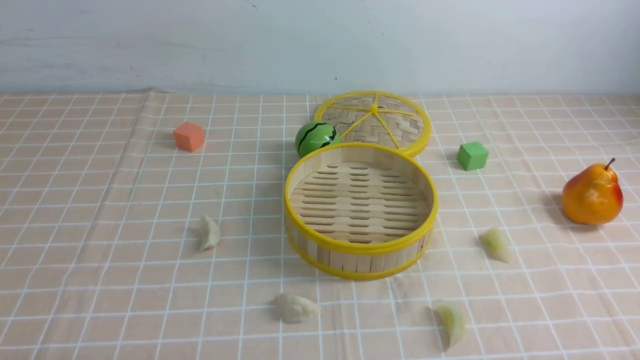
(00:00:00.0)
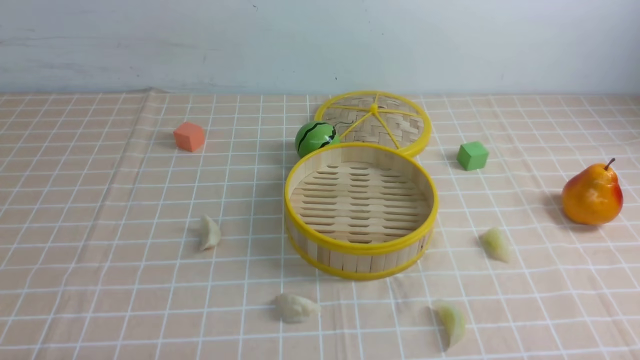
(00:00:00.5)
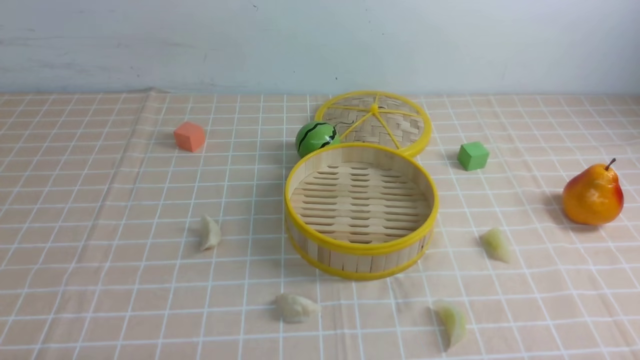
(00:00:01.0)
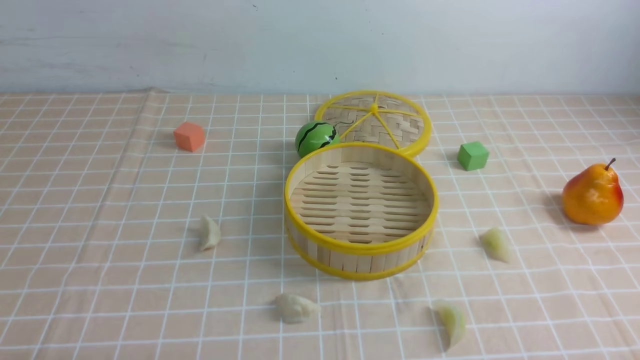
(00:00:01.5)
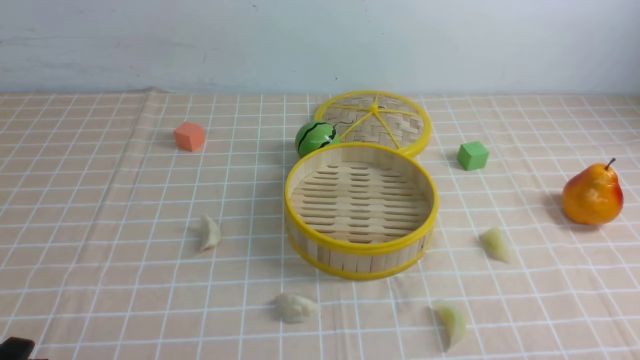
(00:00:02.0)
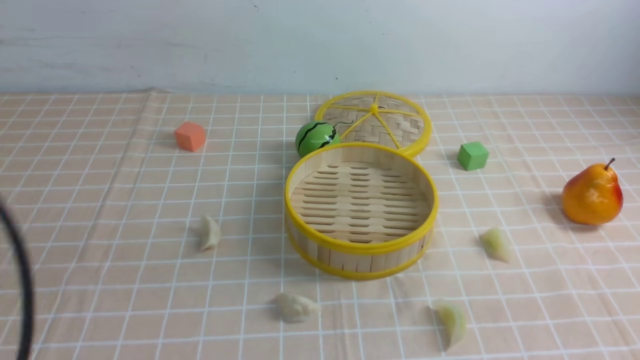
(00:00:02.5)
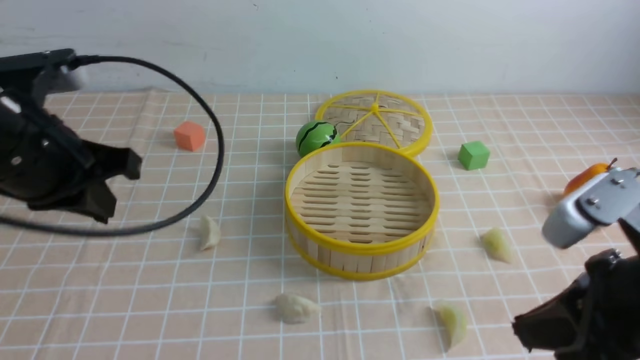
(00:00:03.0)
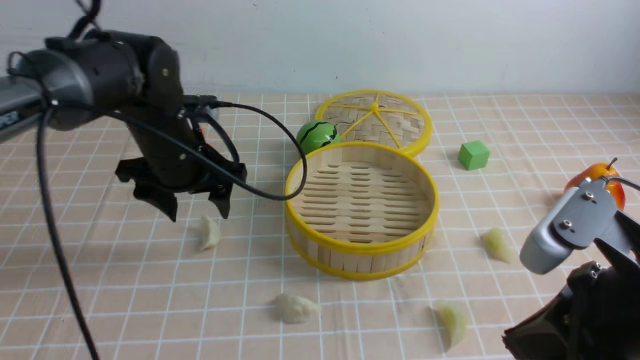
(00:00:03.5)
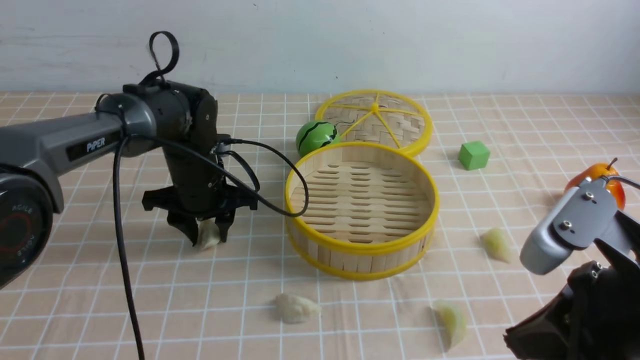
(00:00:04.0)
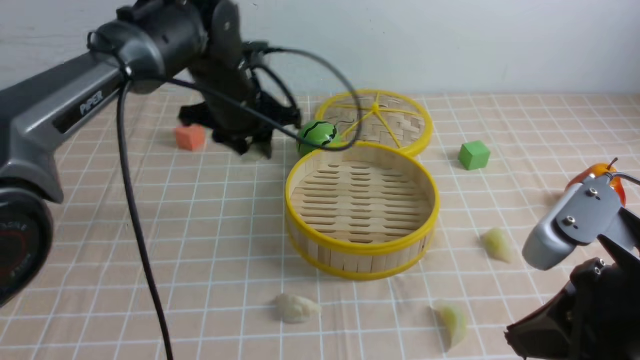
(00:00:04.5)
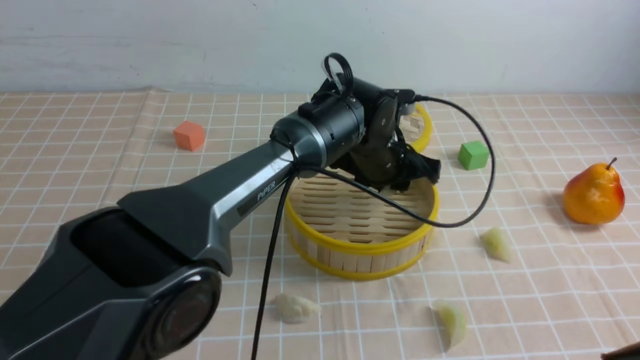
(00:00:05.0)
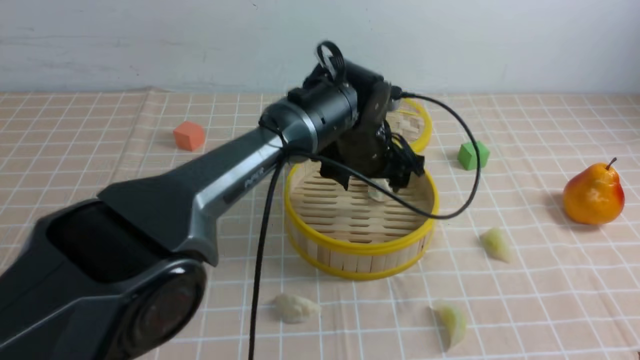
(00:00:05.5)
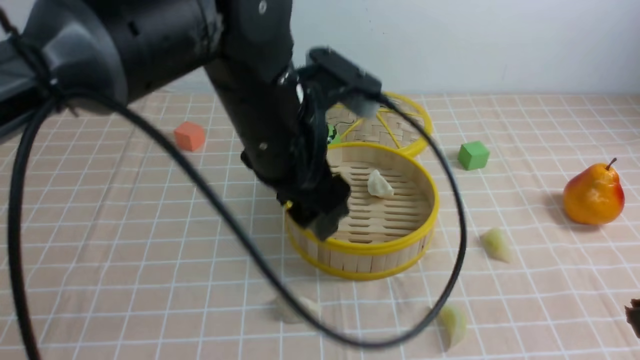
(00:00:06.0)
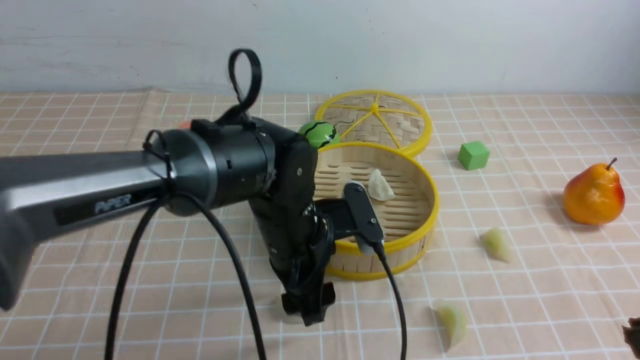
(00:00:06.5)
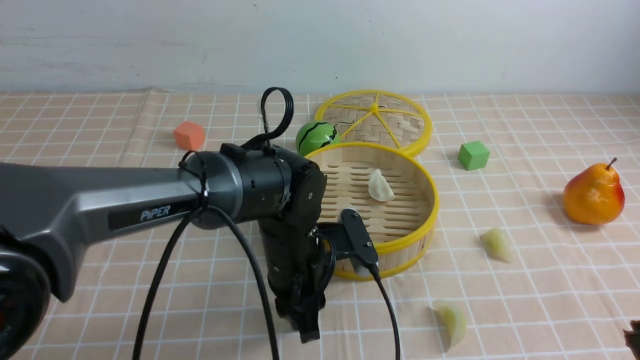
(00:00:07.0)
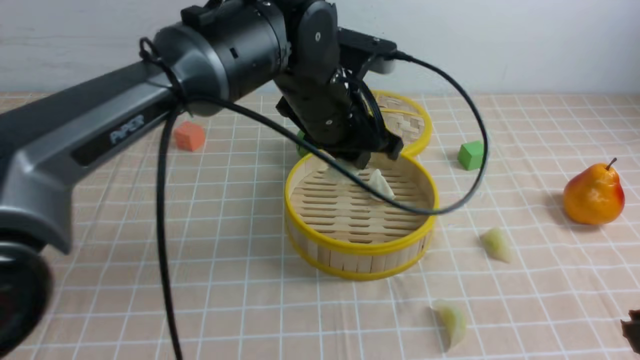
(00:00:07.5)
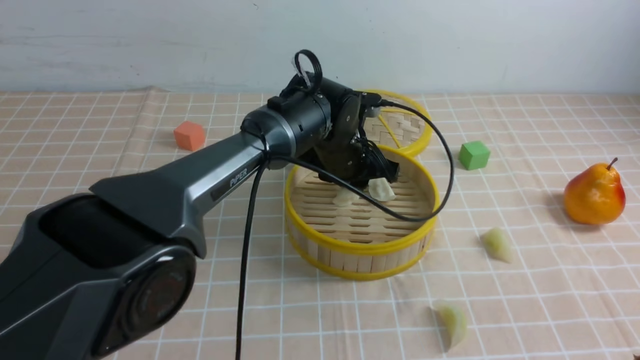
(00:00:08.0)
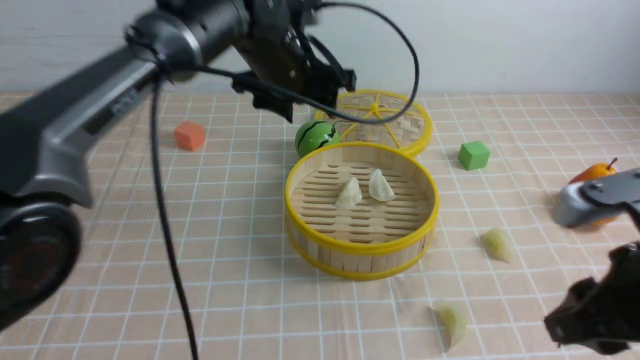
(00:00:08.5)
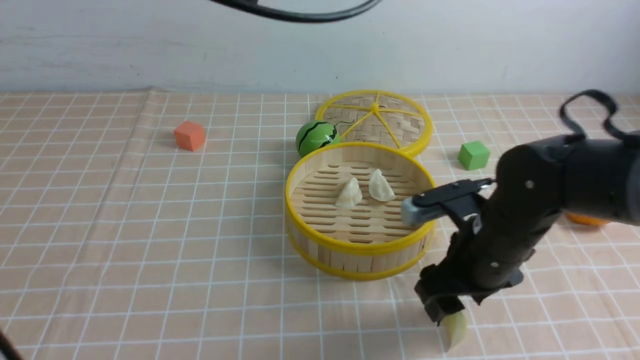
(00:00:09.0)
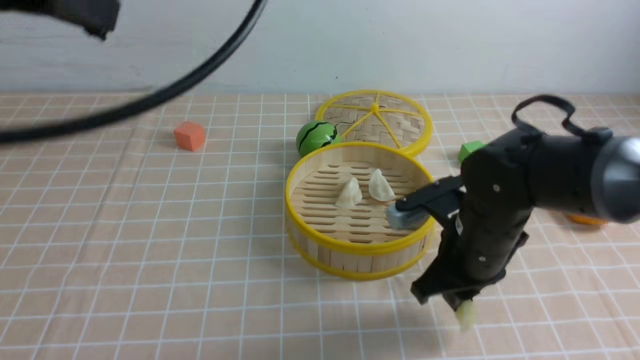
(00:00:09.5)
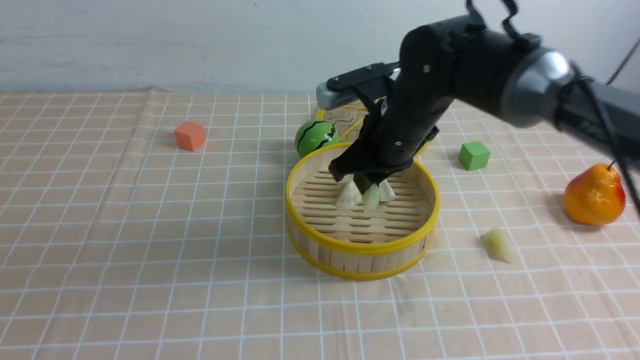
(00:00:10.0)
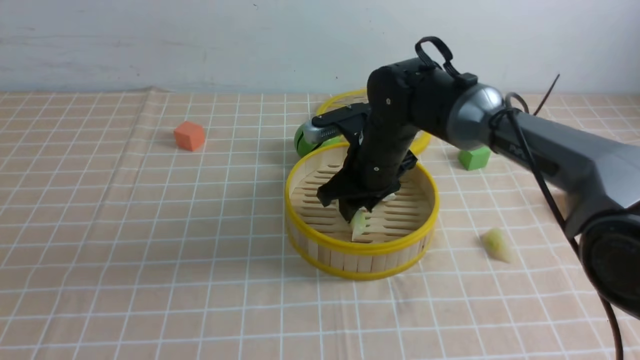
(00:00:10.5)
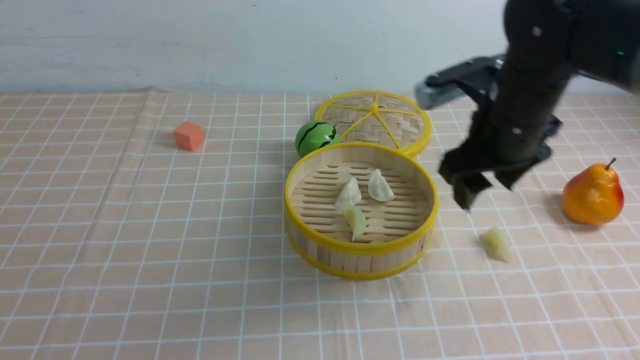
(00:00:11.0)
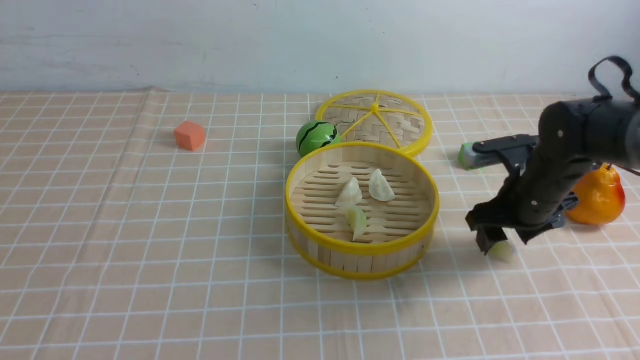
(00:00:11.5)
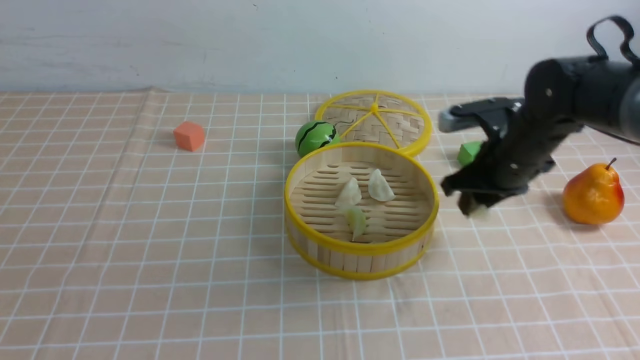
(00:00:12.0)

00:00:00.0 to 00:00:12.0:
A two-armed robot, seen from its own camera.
Task of the whole recording: put the dumplings into the steamer on the table with the brown tablecloth.
Step, 00:00:00.0 to 00:00:04.0: use the left arm to grab a dumpling.
Step, 00:00:04.5 to 00:00:05.5: use the left arm to put the dumpling into the steamer.
Step, 00:00:06.0 to 00:00:06.5: use the left arm to grab a dumpling.
Step, 00:00:07.0 to 00:00:08.0: use the left arm to put the dumpling into the steamer.
Step, 00:00:08.5 to 00:00:09.0: use the right arm to grab a dumpling.
Step, 00:00:09.5 to 00:00:10.5: use the right arm to put the dumpling into the steamer.
Step, 00:00:11.0 to 00:00:11.5: use the right arm to grab a dumpling.
00:00:02.0 to 00:00:04.0: The right gripper goes approximately 15 cm forward, upward and to the left, and closes; the left gripper goes about 40 cm forward, and closes, then reopens.
00:00:04.0 to 00:00:06.0: The left gripper heads upward, to the right and backward, covering about 25 cm. Meanwhile the right gripper shifts approximately 10 cm backward and upward.
00:00:06.0 to 00:00:08.0: The left gripper swings up and down, about 15 cm each way, with 2 reversals, and closes.
00:00:08.0 to 00:00:10.0: The right gripper travels forward and to the left by about 35 cm, and opens, then closes once more; the left gripper goes roughly 50 cm backward, to the left and upward, and closes.
00:00:10.0 to 00:00:12.0: The right gripper shifts some 15 cm to the right and downward, and opens and closes again.

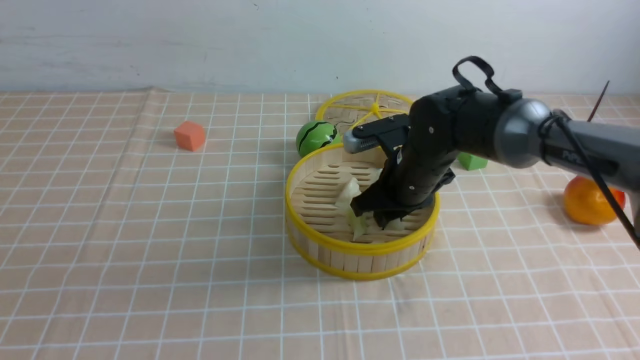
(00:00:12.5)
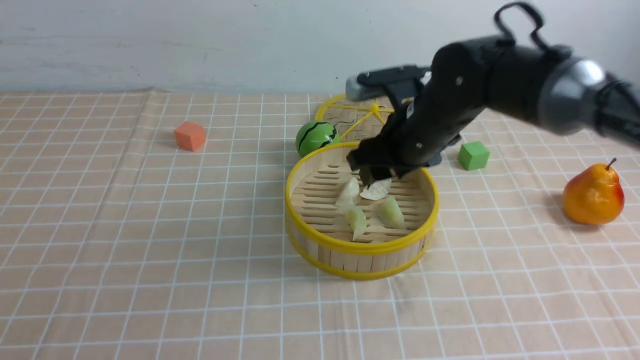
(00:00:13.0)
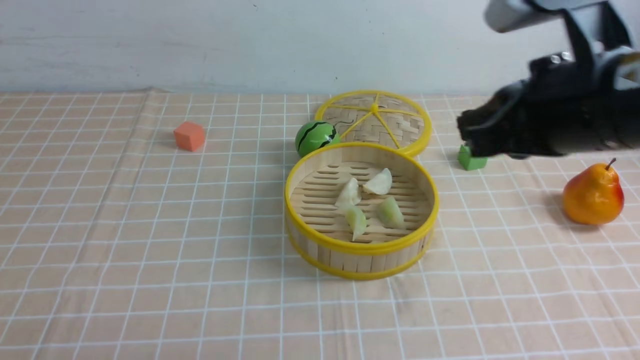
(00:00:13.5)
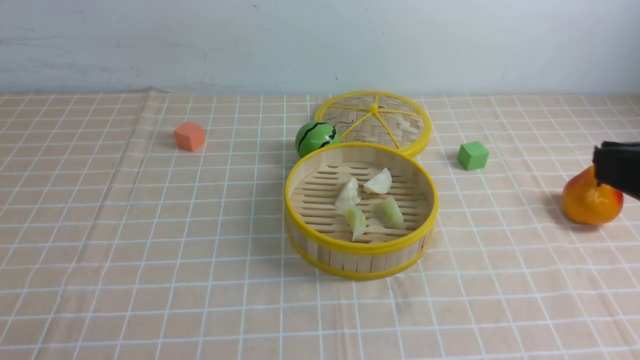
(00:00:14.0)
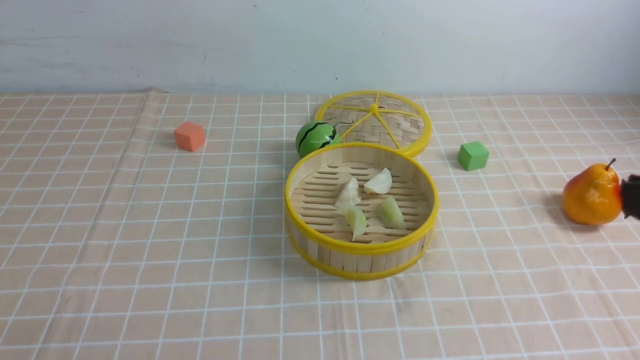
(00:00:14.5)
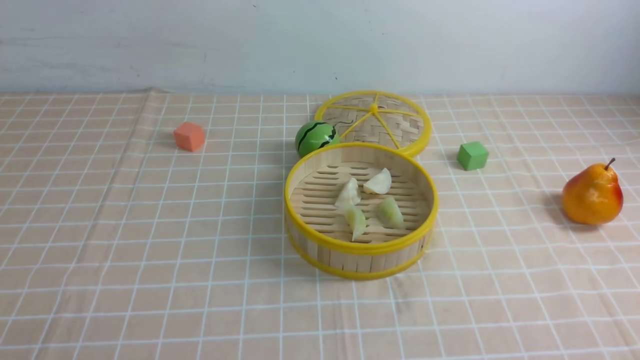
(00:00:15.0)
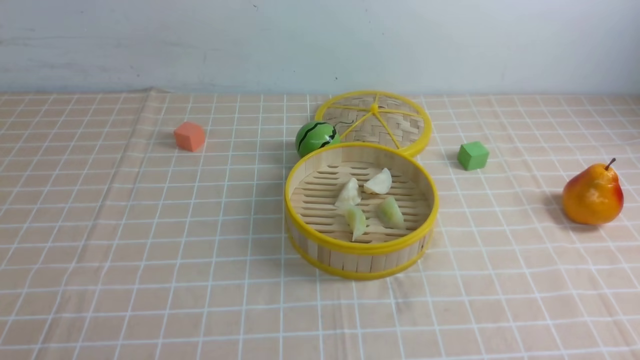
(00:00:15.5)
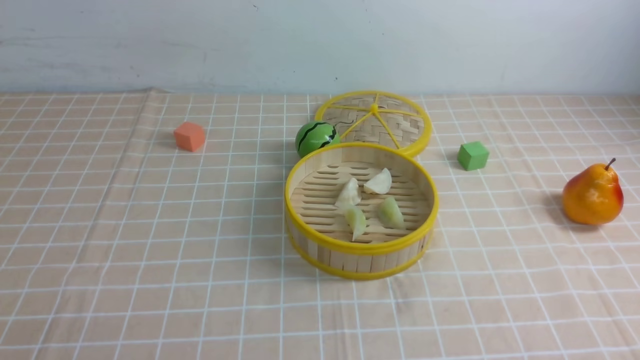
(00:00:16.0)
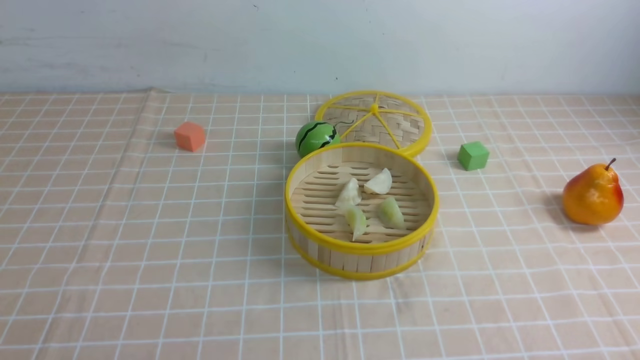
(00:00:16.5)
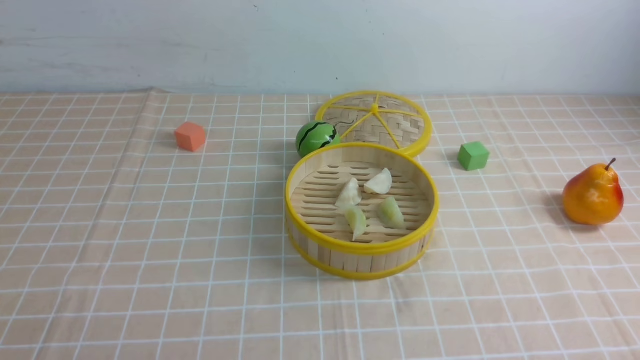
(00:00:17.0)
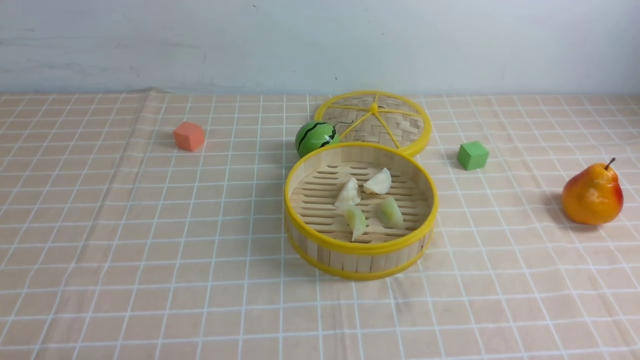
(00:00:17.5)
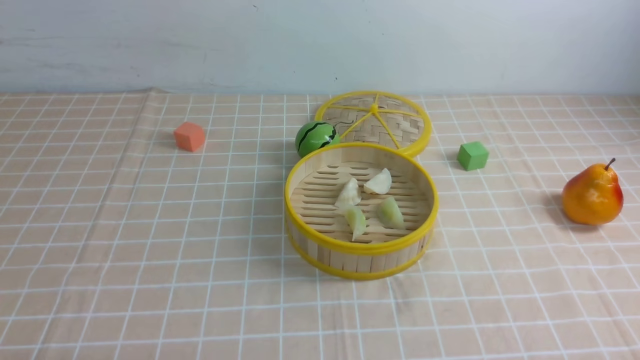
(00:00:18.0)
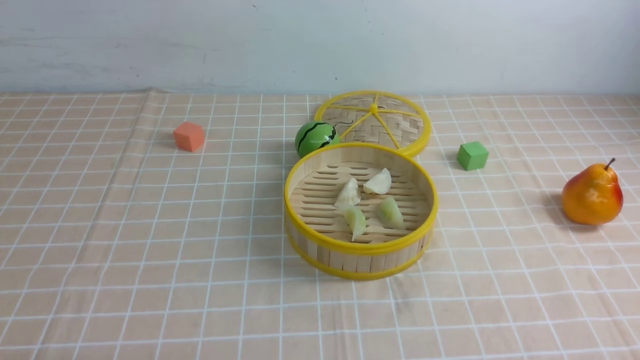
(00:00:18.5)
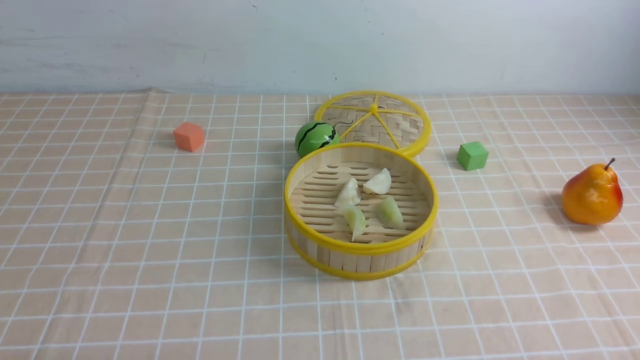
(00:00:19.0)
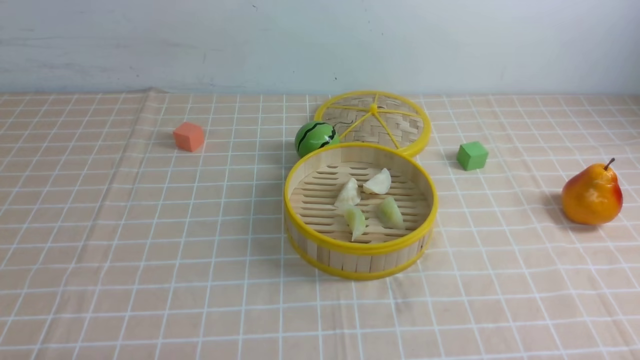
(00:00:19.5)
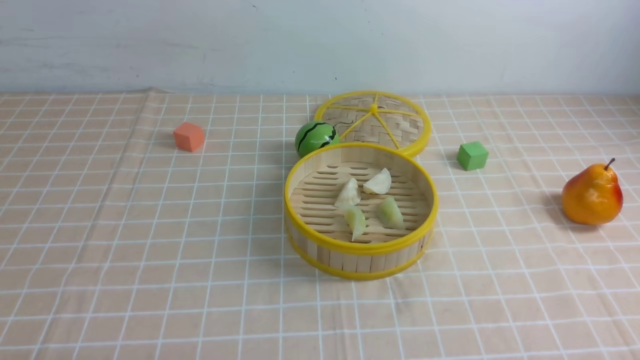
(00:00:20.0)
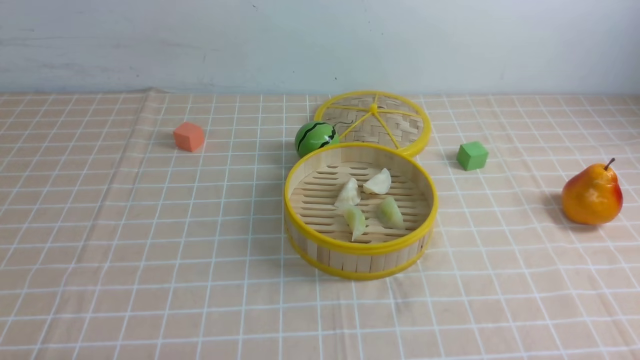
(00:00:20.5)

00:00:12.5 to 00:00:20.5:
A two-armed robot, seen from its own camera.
Task of the whole recording: put the dumplings into the steamer on the table with the brown tablecloth.
00:00:12.5 to 00:00:14.5: The left gripper moves downward, about 15 cm. Meanwhile the right gripper travels backward, upward and to the right by about 40 cm, and closes up.
00:00:18.5 to 00:00:20.5: Both grippers stay put.
